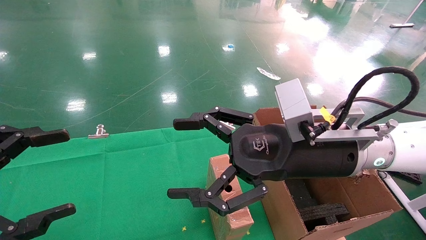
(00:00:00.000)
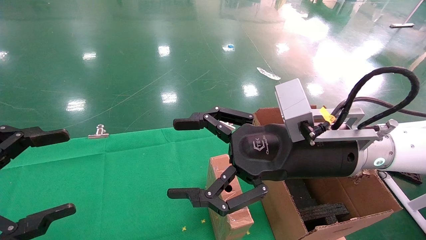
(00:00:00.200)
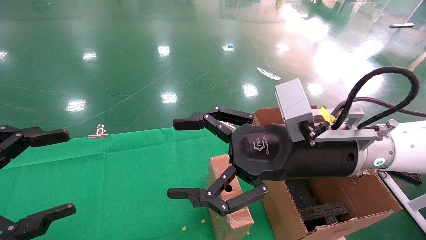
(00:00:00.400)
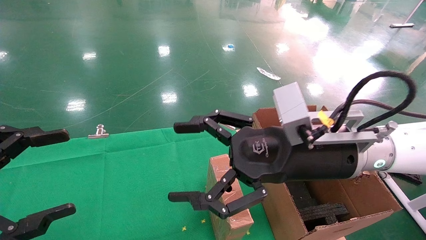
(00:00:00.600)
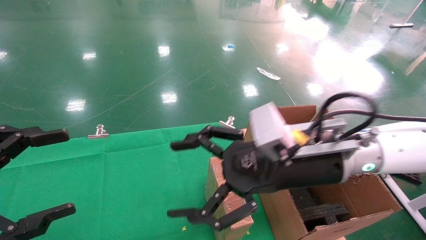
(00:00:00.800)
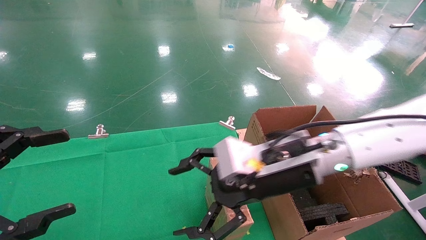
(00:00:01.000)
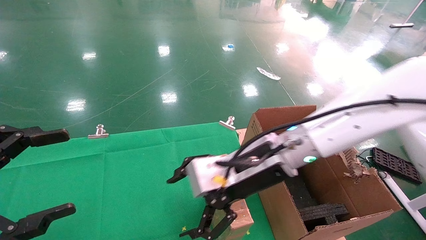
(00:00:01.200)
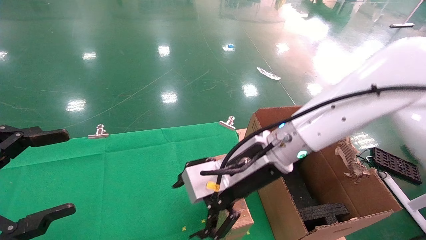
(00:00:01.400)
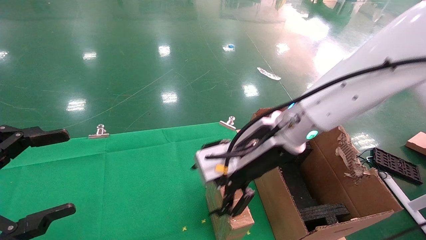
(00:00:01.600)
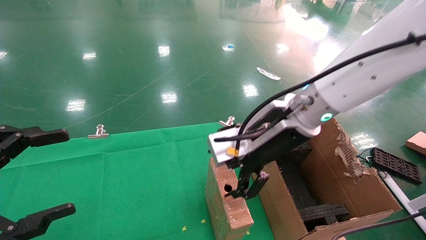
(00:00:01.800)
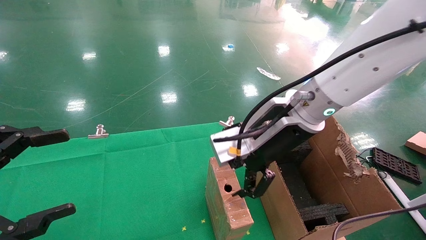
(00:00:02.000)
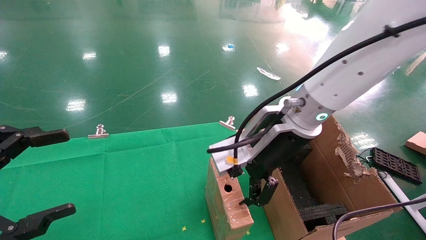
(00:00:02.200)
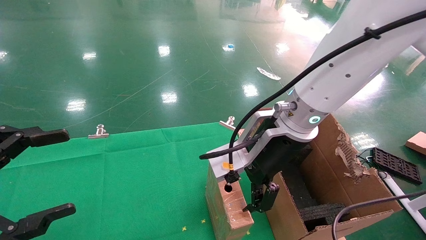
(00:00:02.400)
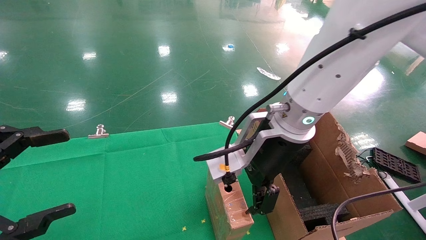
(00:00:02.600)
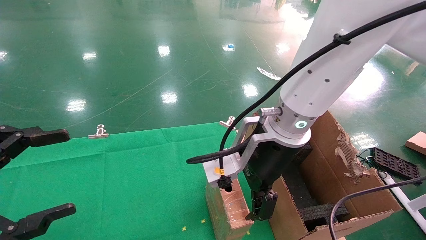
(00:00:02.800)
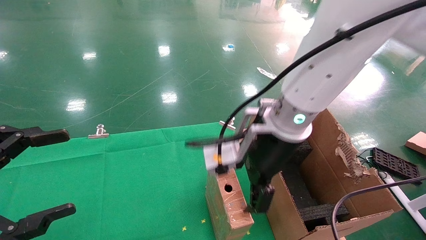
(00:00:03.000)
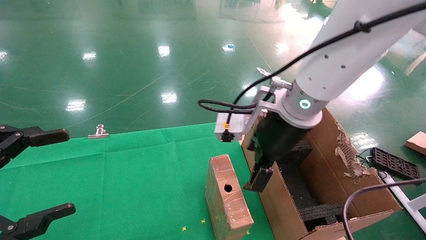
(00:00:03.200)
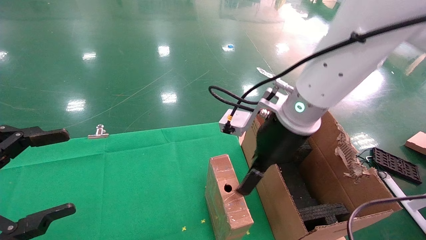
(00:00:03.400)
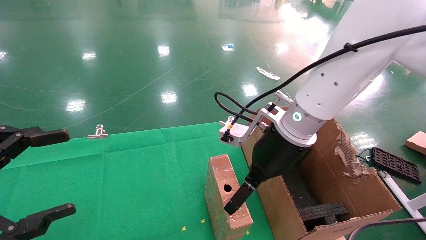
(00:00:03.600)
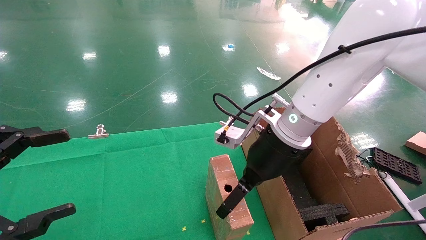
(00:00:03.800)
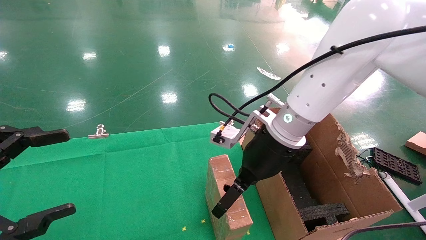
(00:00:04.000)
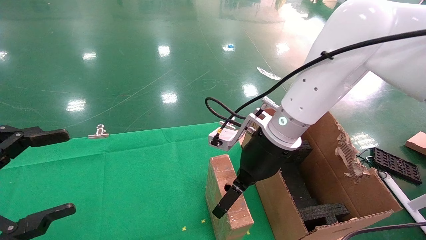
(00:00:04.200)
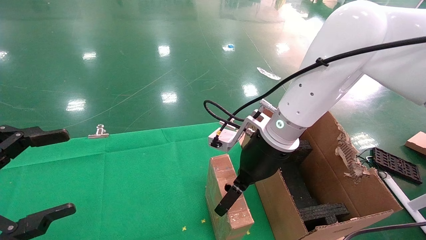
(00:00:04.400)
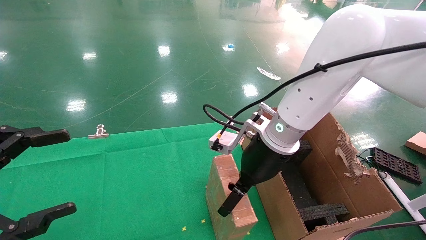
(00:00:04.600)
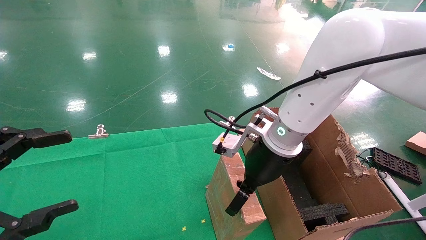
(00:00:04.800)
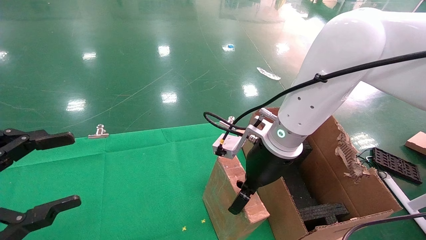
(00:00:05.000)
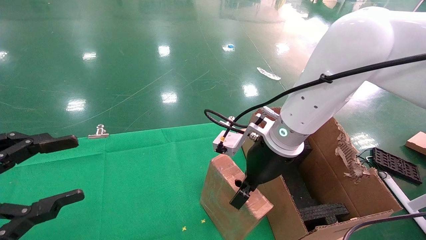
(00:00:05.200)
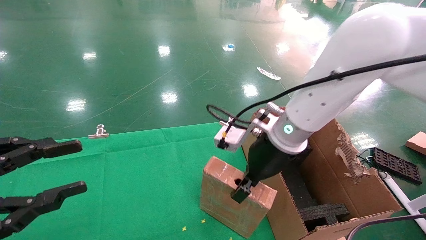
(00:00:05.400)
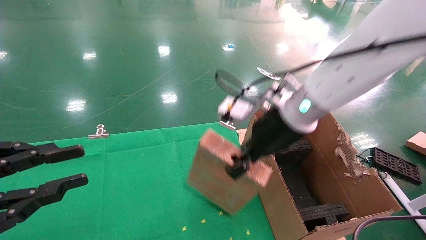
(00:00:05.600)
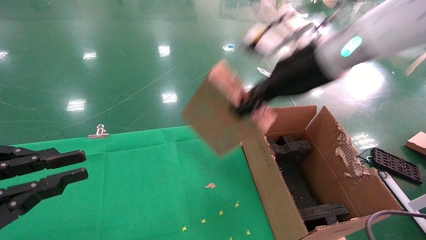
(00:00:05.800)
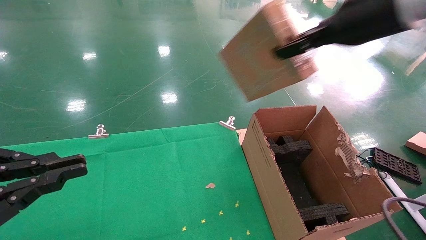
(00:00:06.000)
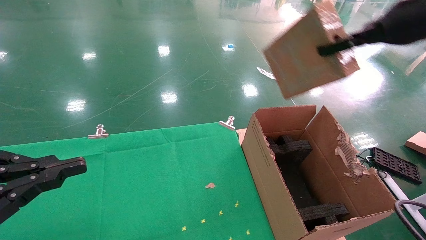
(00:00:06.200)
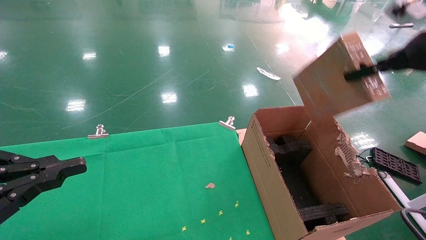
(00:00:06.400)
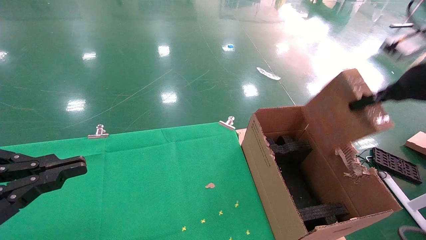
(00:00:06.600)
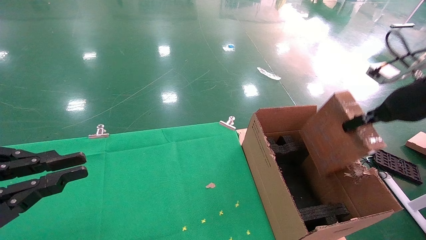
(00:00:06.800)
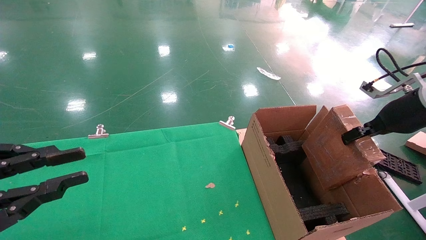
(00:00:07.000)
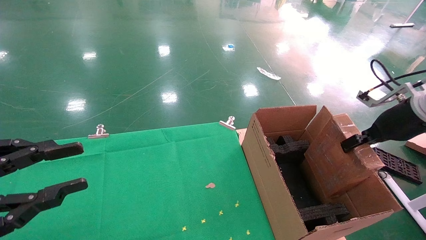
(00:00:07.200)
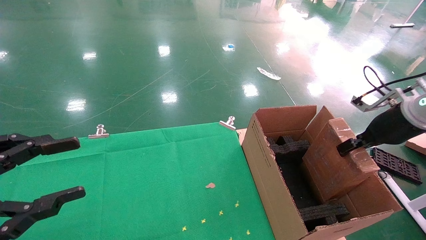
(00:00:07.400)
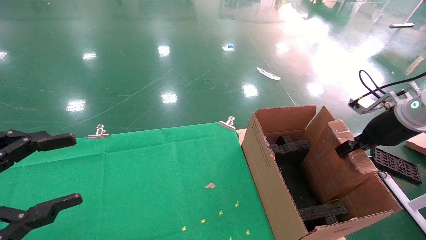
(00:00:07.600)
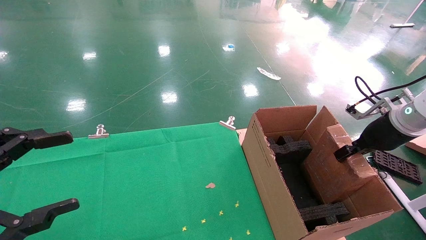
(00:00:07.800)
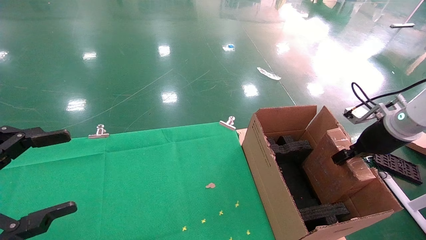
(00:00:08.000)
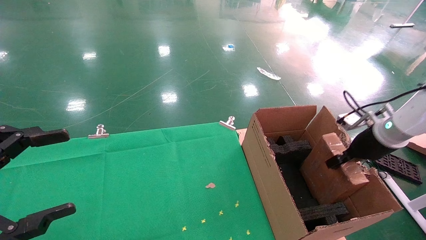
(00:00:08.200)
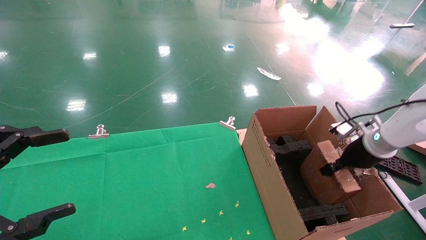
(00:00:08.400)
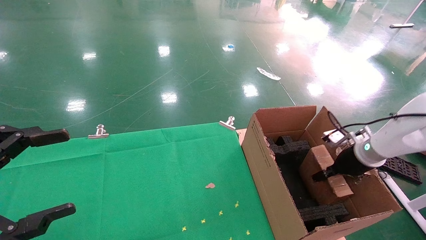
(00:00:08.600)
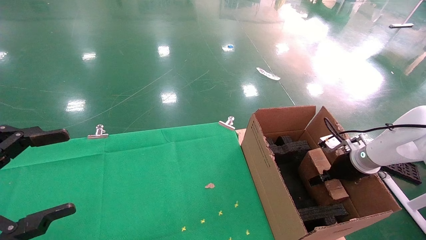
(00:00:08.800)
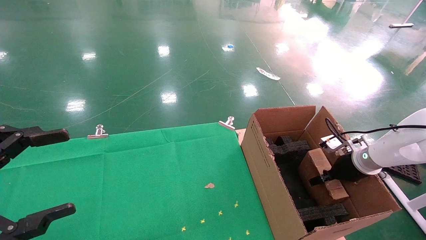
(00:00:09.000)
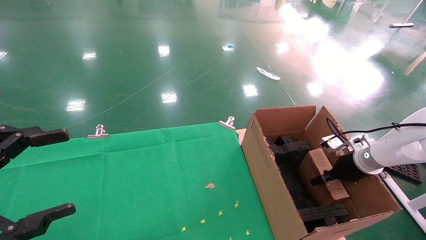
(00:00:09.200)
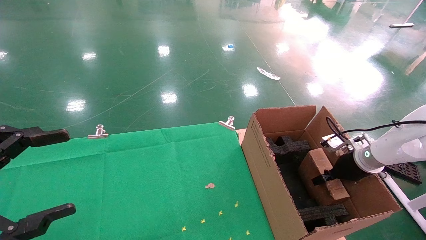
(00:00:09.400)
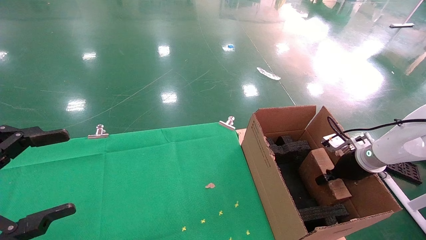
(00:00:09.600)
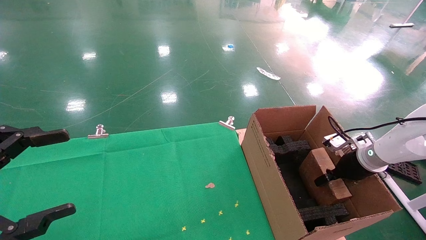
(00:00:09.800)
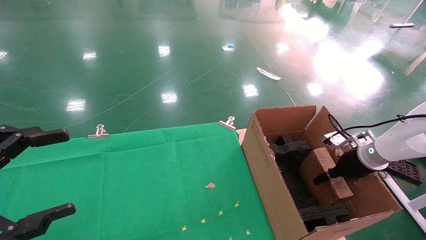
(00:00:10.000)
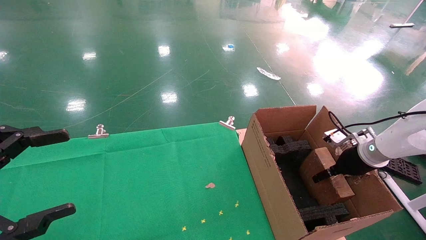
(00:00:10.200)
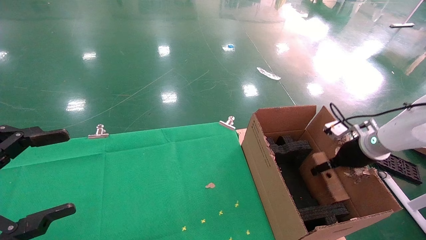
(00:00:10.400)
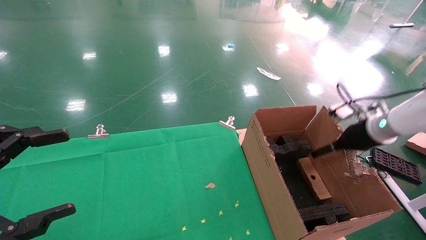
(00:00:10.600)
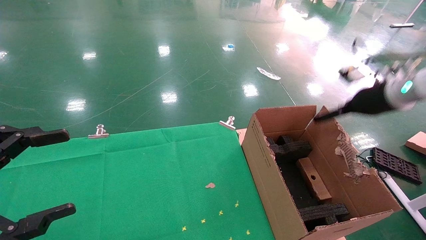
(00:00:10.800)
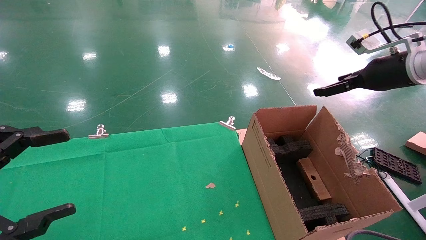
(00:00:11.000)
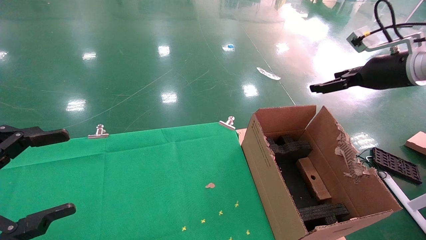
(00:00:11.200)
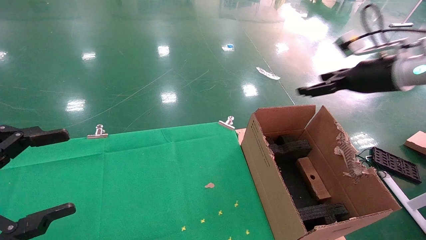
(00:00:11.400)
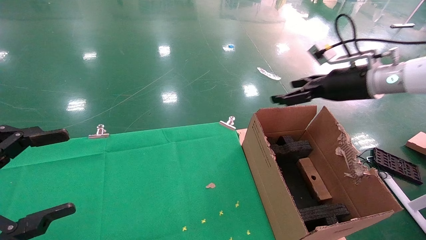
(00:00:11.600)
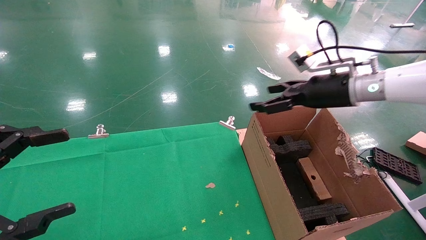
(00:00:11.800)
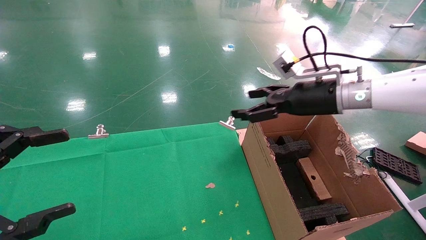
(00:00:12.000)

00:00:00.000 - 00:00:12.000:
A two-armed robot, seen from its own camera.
Task of the whole recording: using a robotic arm to pick up a cardboard box and palace it the carton.
Step, 00:00:01.000 - 00:00:05.600: Pick up the mouse and the power cord paper box.
Step, 00:00:05.800 - 00:00:10.200: Place the mouse and the power cord paper box into the container.
00:00:00.000 - 00:00:01.600: The right gripper heads forward, covering some 5 cm.
00:00:03.000 - 00:00:04.400: The right gripper changes place by about 5 cm.
00:00:04.400 - 00:00:06.000: The right gripper heads upward and to the right, covering approximately 25 cm, and closes up; the left gripper closes.
00:00:06.000 - 00:00:07.600: The left gripper opens its fingers. Meanwhile the right gripper shifts about 25 cm downward and to the right.
00:00:07.600 - 00:00:09.000: The right gripper heads downward, covering some 15 cm; the left gripper opens its fingers.
00:00:09.000 - 00:00:10.400: The right gripper goes about 5 cm upward, and opens up.
00:00:10.400 - 00:00:12.000: The right gripper goes some 20 cm to the left and upward.

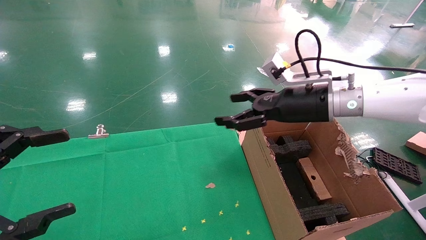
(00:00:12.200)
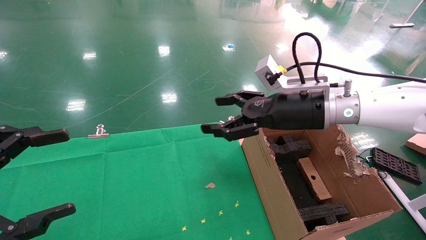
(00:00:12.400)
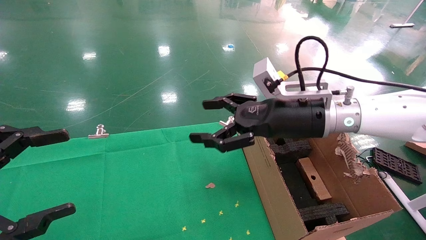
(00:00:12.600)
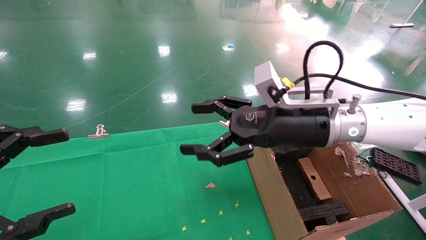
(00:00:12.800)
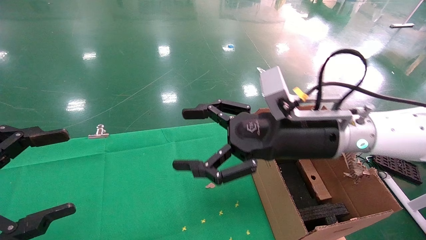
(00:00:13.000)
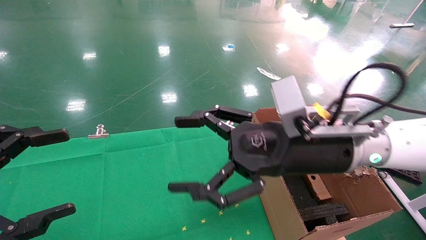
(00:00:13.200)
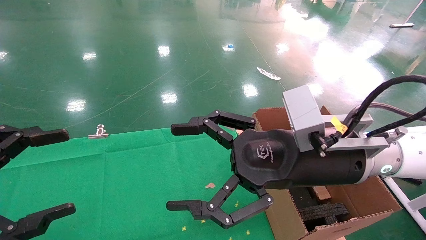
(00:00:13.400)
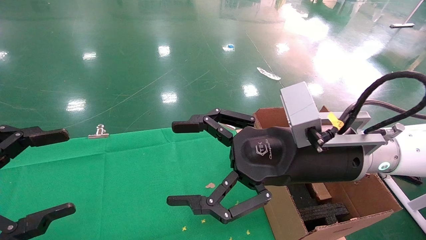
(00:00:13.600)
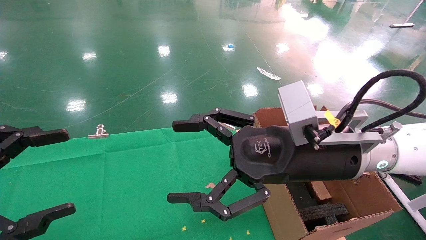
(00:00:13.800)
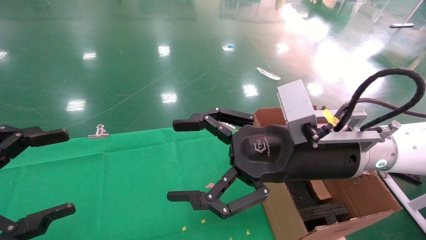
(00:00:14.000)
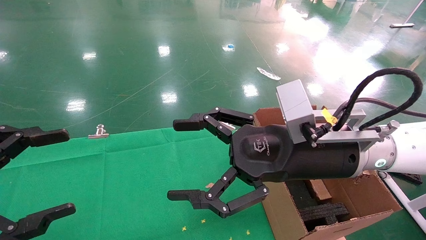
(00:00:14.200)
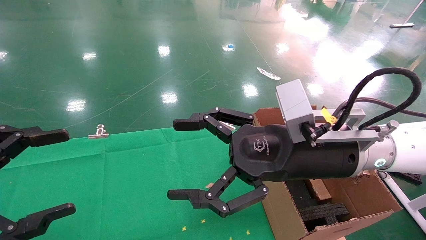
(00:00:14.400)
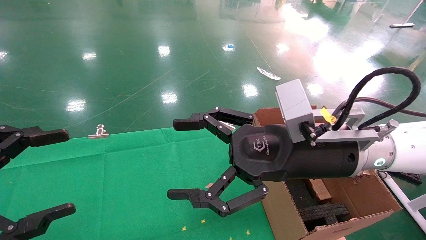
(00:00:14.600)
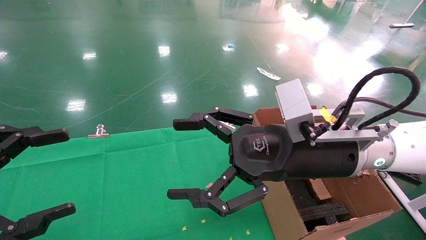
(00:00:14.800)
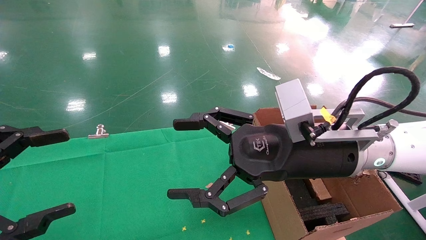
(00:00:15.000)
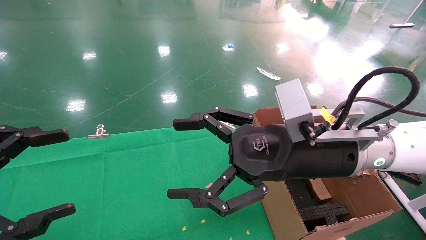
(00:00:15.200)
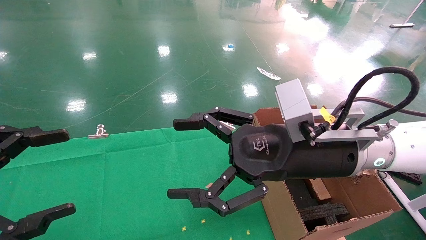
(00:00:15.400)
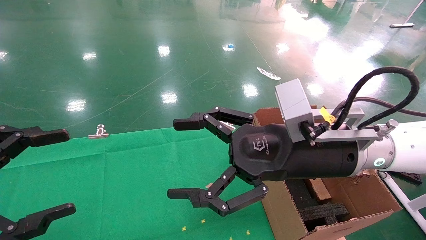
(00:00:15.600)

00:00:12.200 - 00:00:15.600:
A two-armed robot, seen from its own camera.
Task of the whole recording: using a robotic arm to pick up a cardboard box and palace it the carton.
00:00:12.200 - 00:00:13.800: The right gripper shifts approximately 15 cm backward and to the left.
00:00:13.800 - 00:00:15.600: Neither gripper changes place.
